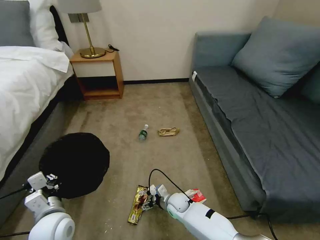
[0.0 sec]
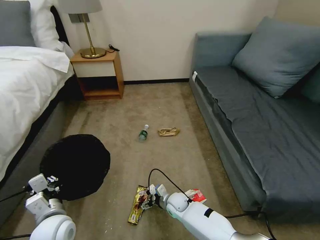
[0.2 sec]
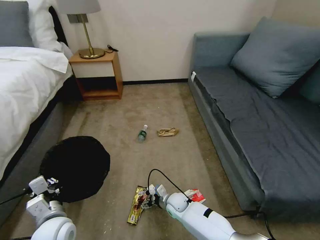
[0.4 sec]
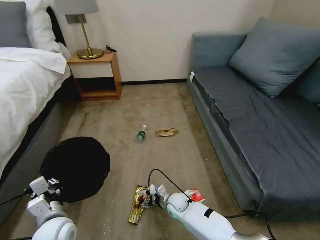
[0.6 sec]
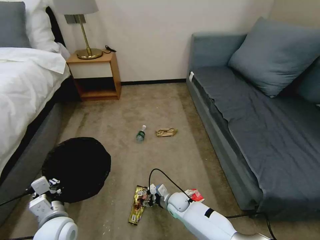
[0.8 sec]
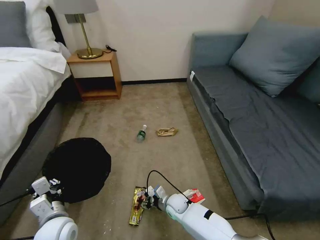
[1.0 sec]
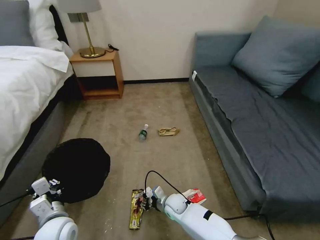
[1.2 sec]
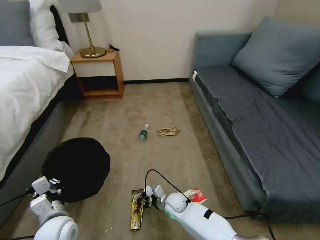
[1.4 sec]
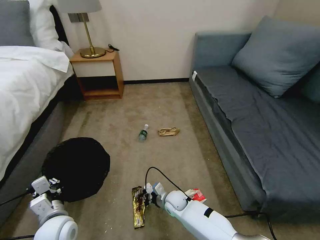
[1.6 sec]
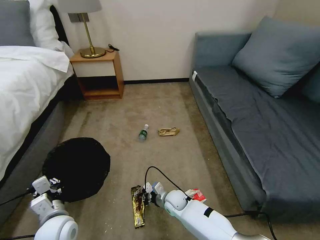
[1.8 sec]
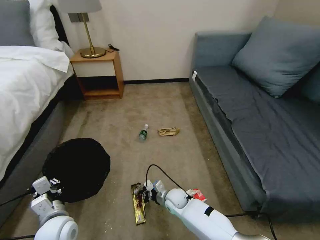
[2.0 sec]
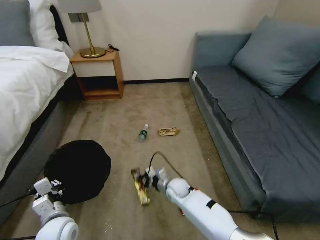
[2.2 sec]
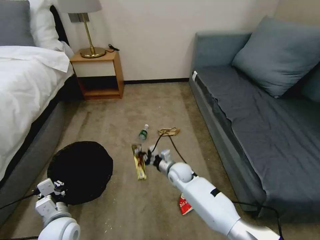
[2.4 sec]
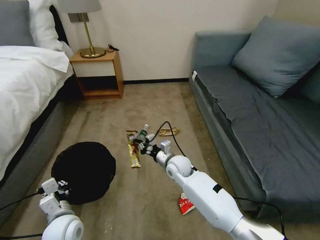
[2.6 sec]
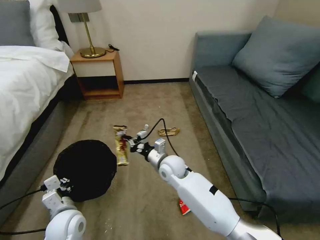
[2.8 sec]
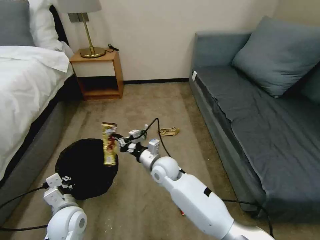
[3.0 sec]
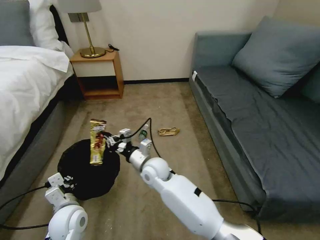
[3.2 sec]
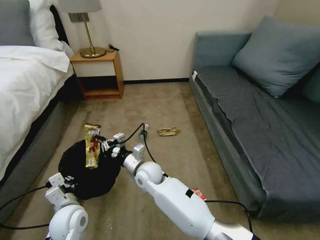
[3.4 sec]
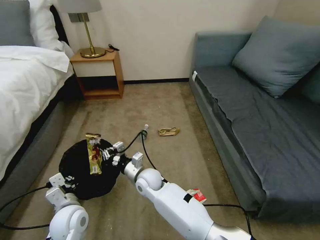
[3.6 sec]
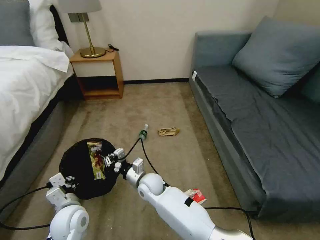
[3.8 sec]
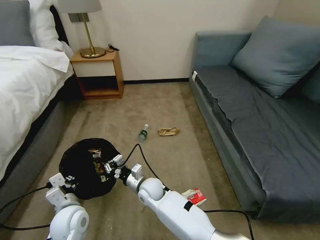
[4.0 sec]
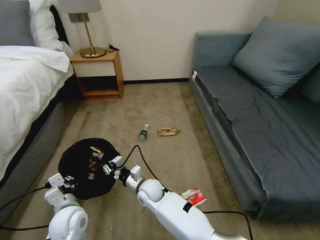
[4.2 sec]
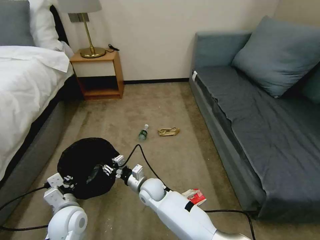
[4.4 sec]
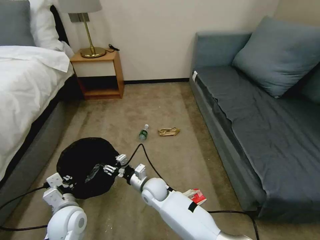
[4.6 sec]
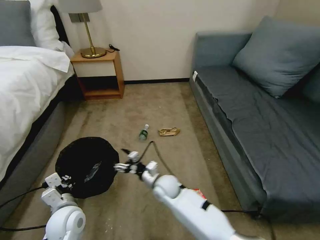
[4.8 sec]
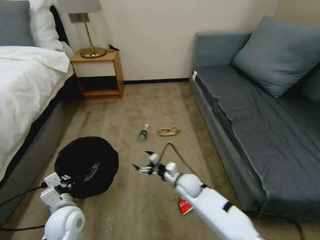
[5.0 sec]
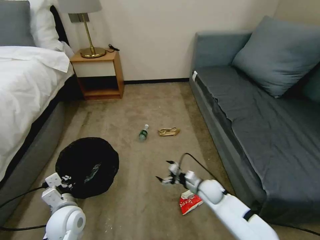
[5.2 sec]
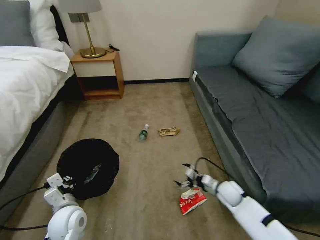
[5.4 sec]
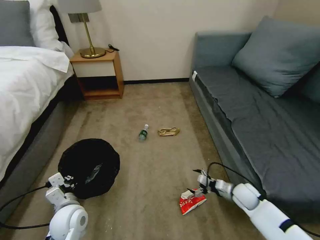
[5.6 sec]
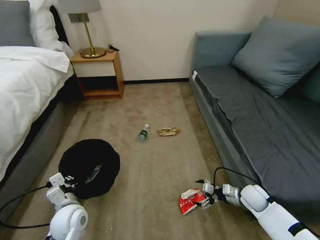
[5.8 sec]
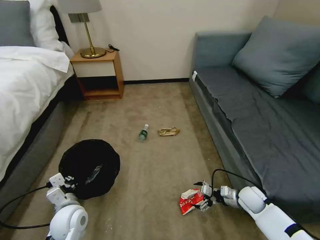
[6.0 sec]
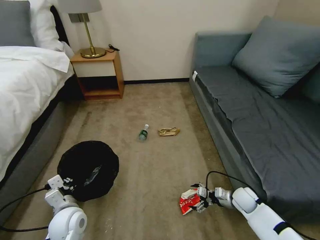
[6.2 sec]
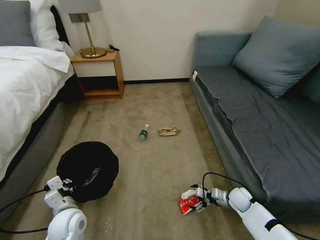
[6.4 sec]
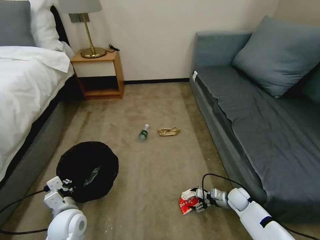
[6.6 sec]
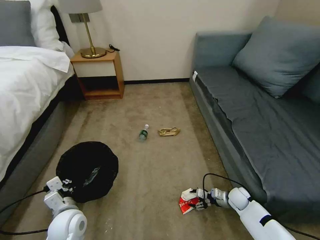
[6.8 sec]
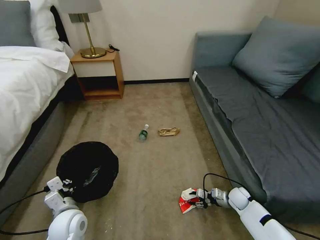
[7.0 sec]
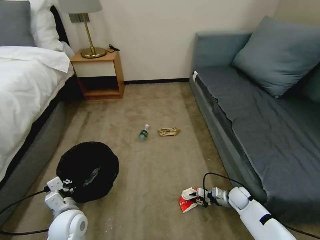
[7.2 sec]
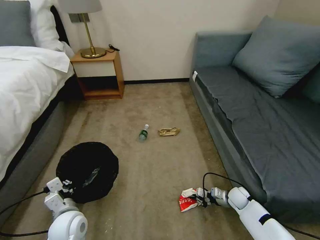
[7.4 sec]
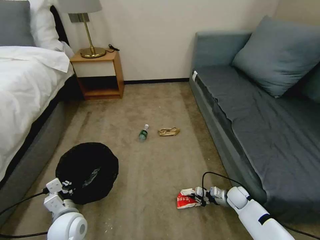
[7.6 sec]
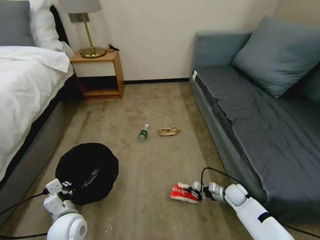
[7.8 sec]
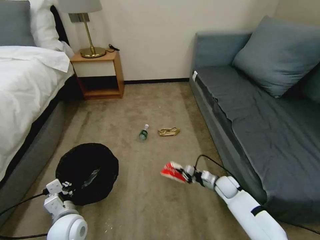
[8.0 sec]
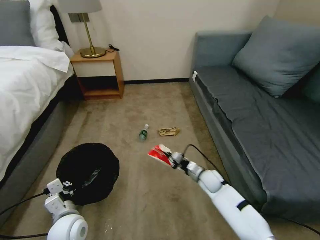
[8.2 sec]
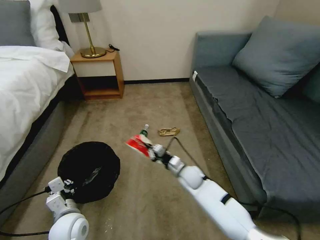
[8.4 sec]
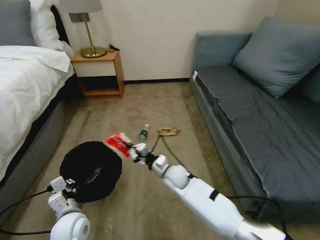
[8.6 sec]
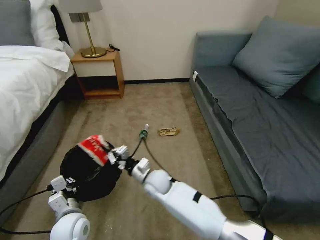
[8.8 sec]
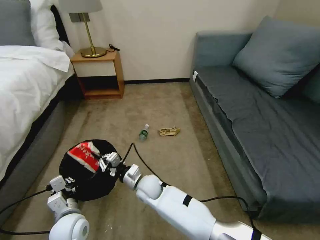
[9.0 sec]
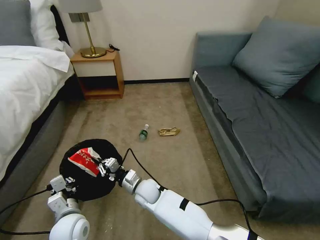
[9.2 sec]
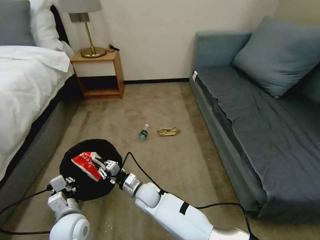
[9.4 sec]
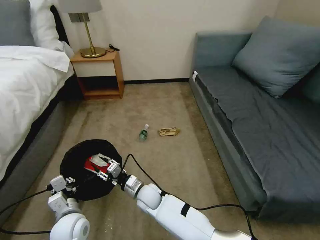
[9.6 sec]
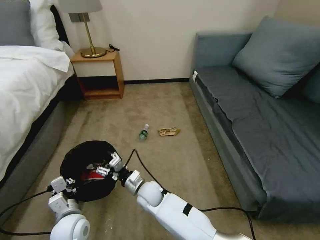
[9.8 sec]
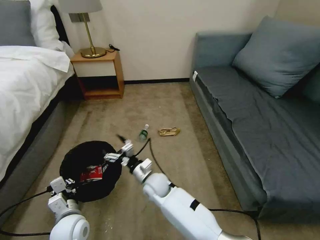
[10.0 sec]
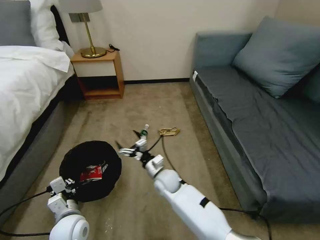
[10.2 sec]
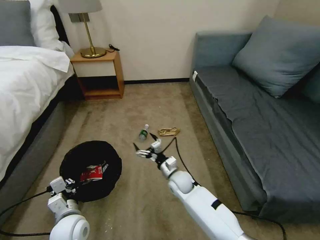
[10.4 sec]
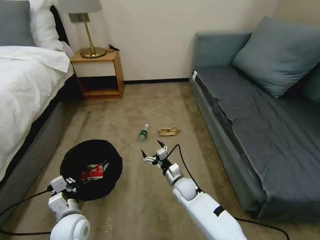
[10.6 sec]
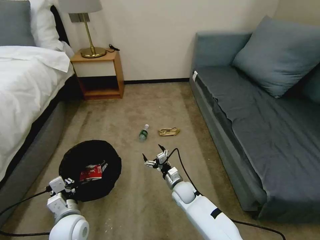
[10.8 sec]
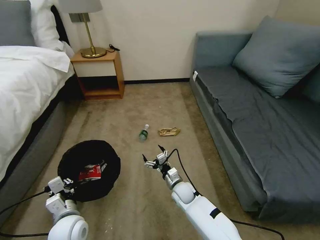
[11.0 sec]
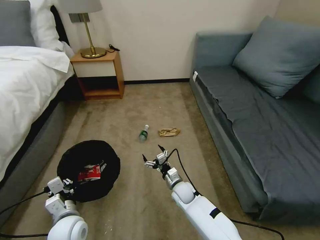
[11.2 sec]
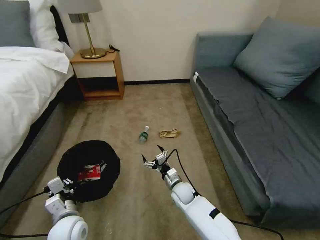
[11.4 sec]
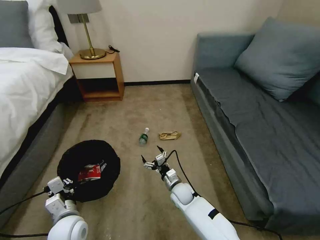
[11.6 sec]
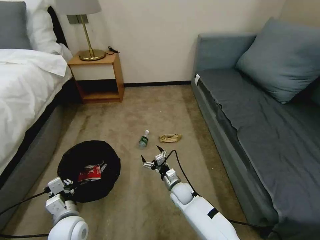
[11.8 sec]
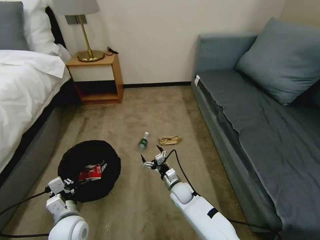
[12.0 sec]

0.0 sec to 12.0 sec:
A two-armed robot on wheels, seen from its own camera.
Task of the whole recording: Pick up the trash bin, then pick up the garbage on the floor and place it into the trash bin.
0.0 sec to 1.6 sec: The right gripper closes up.
1.6 sec to 3.0 sec: The right gripper shifts about 20 cm upward.
3.0 sec to 4.4 sec: The right gripper moves downward, roughly 10 cm, and opens.
4.4 sec to 6.0 sec: The right gripper shifts some 40 cm to the right, and opens up.
6.0 sec to 7.6 sec: The right gripper moves downward, some 5 cm, and closes up.
7.6 sec to 9.0 sec: The right gripper moves to the left, some 40 cm.
9.0 sec to 10.4 sec: The right gripper heads to the right, covering about 10 cm, and opens up.
10.4 sec to 12.0 sec: The right gripper is displaced downward by roughly 5 cm.

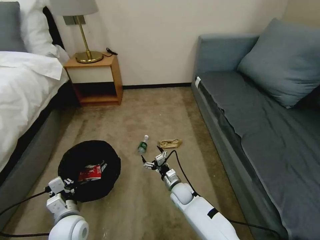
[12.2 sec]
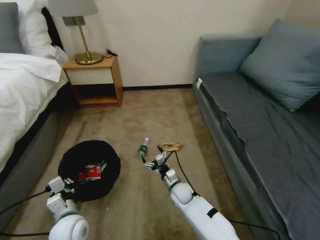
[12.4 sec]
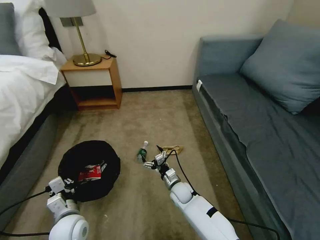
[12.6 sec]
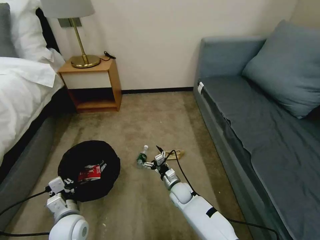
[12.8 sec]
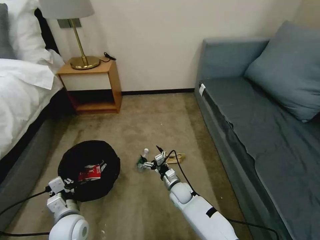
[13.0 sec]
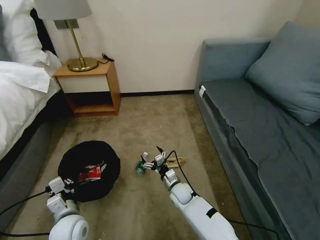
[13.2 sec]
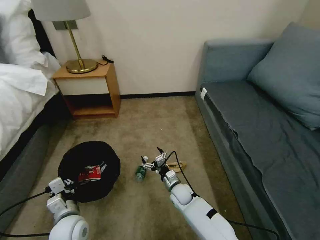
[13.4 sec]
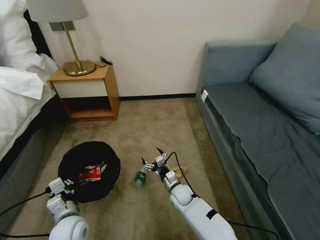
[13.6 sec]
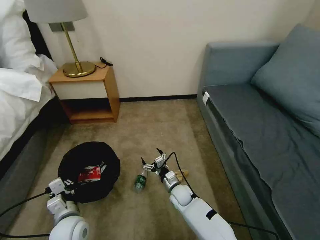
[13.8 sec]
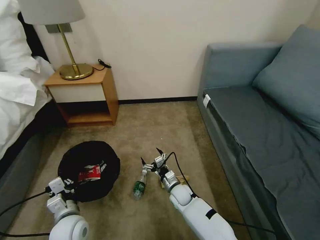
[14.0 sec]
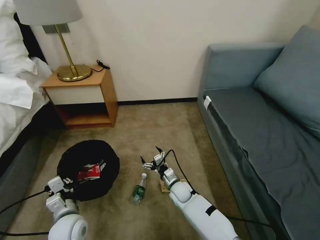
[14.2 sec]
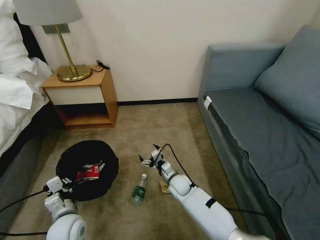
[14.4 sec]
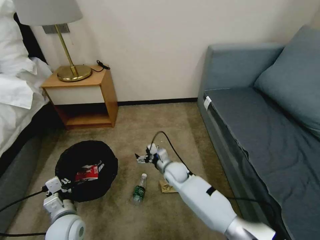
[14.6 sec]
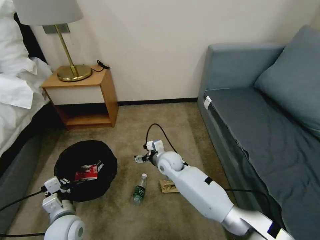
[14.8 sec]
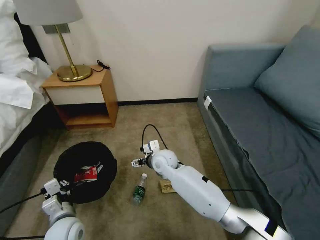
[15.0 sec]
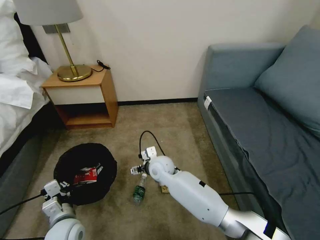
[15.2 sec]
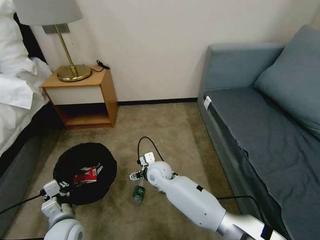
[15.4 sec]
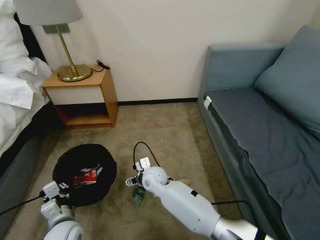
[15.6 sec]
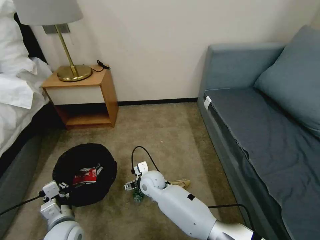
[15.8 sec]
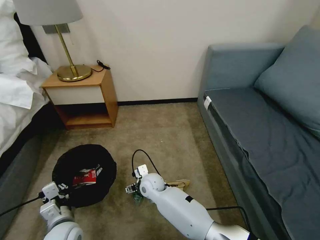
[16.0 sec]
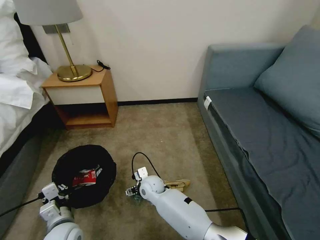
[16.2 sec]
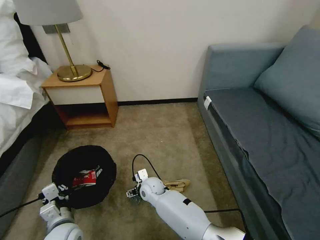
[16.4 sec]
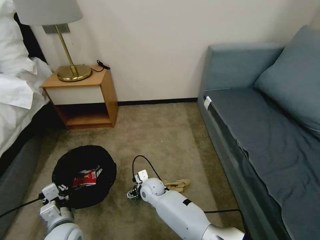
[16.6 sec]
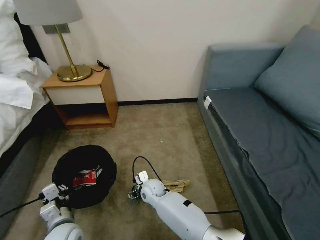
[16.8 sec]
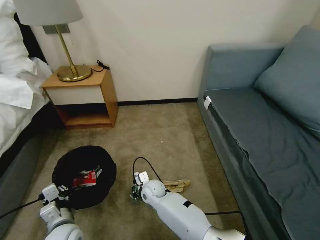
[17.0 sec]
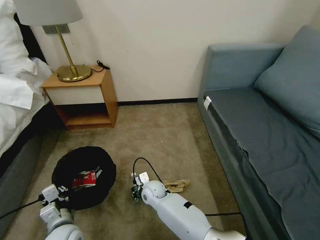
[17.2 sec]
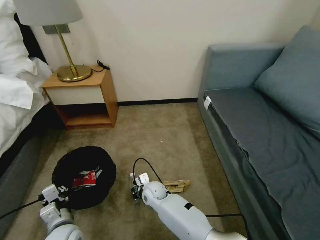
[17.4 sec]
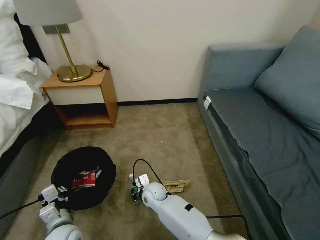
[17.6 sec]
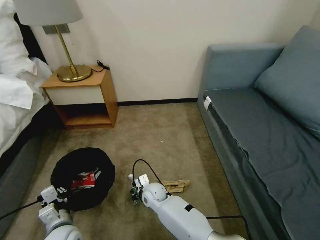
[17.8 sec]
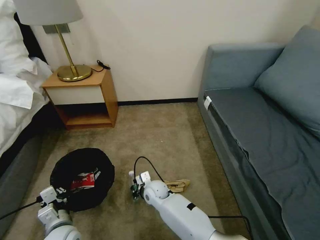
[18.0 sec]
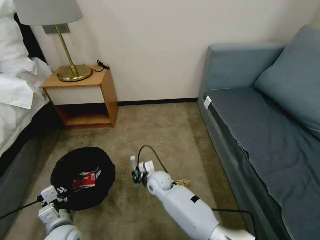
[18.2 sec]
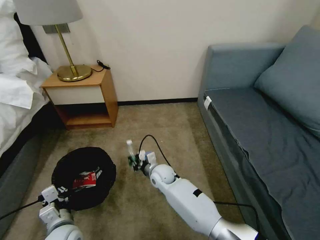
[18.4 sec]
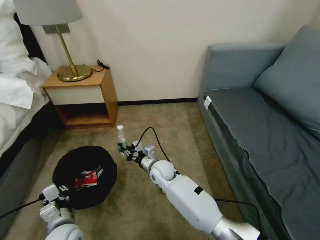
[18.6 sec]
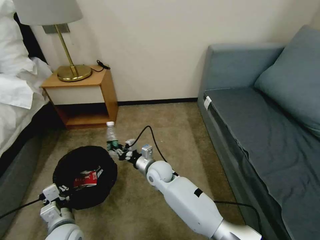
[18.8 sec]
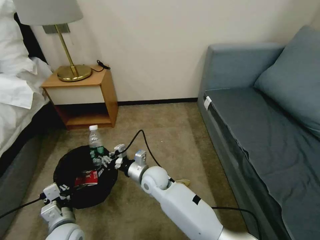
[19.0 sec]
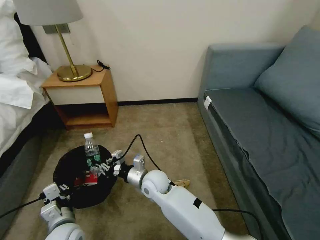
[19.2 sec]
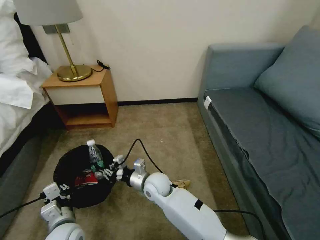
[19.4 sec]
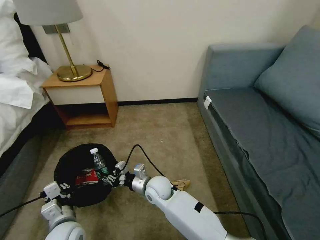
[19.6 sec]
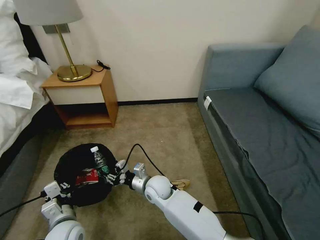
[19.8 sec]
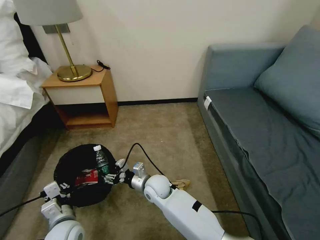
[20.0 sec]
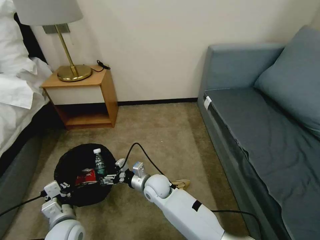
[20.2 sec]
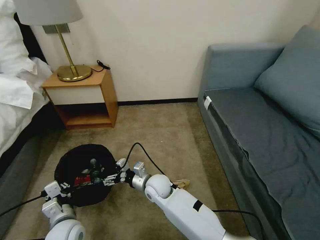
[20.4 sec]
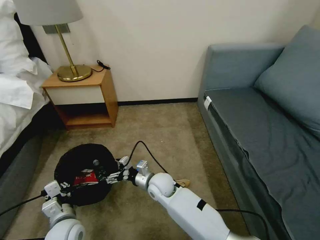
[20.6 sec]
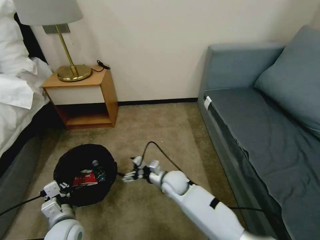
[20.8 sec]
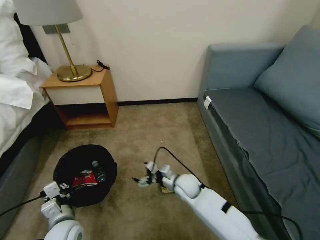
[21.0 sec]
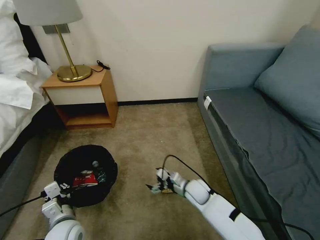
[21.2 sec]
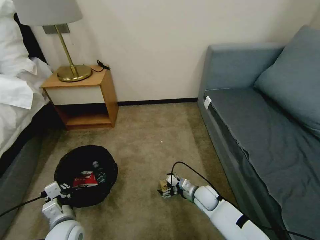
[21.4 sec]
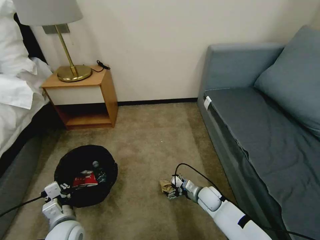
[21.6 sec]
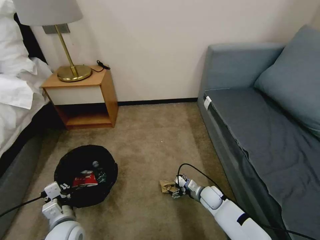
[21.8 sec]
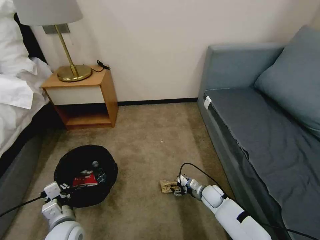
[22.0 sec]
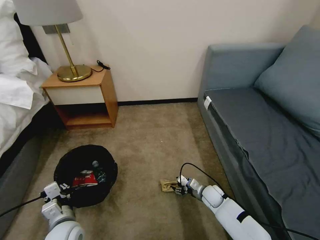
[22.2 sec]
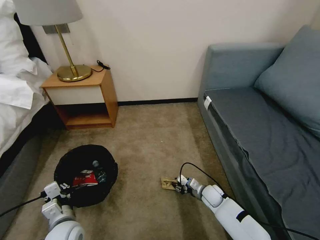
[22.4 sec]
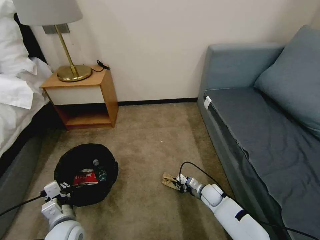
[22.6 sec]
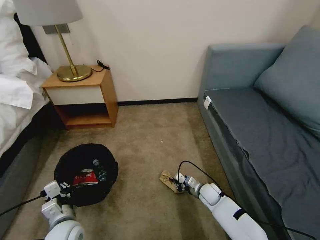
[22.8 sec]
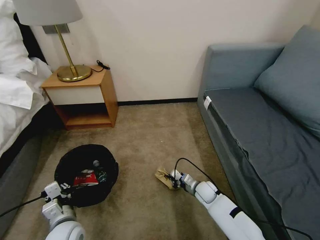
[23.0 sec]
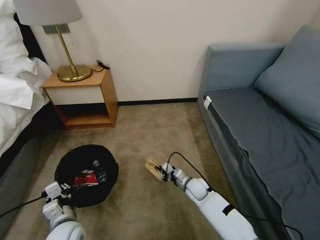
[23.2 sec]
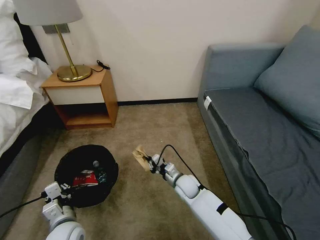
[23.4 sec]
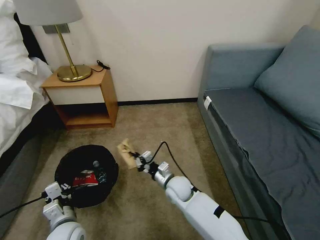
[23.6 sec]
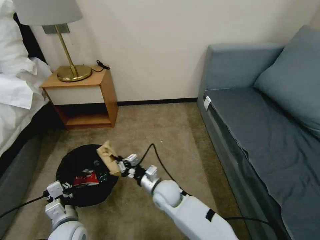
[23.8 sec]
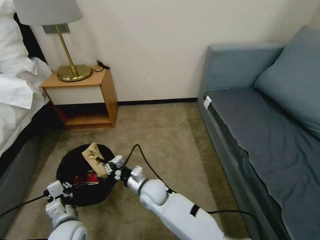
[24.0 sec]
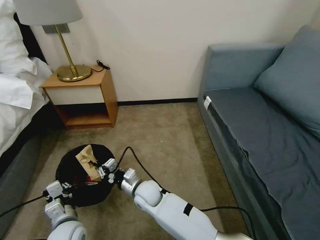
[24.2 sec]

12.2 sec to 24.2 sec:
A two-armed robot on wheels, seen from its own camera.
Task of the whole recording: Pick up the trash bin, then pick up the garbage on the floor and place it into the trash bin.
13.8 sec to 15.2 sec: The right gripper goes approximately 20 cm upward and to the left.
15.2 sec to 16.6 sec: The right gripper goes some 10 cm downward.
16.6 sec to 18.2 sec: The right gripper closes up.
19.8 sec to 21.2 sec: The right gripper is displaced to the right by about 20 cm, and opens up.
21.2 sec to 22.6 sec: The right gripper heads to the right and downward, covering roughly 10 cm, and closes up.
22.6 sec to 24.2 sec: The right gripper shifts some 30 cm to the left and upward.
